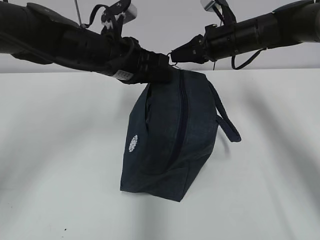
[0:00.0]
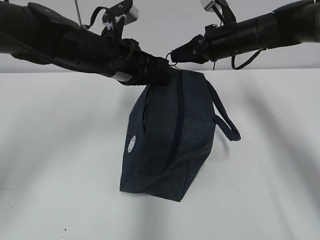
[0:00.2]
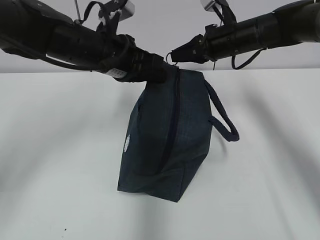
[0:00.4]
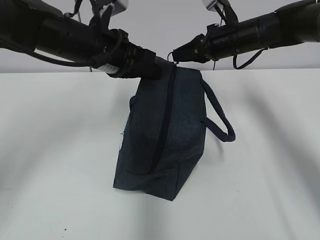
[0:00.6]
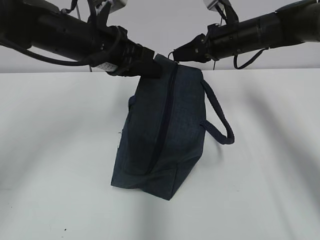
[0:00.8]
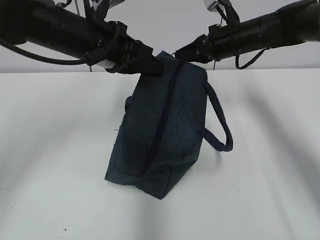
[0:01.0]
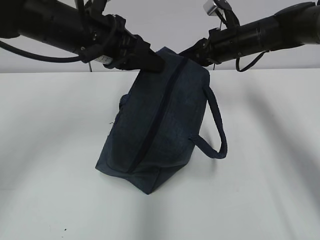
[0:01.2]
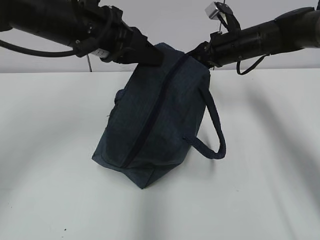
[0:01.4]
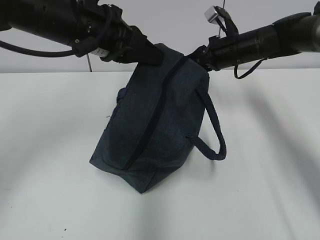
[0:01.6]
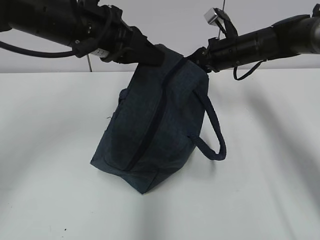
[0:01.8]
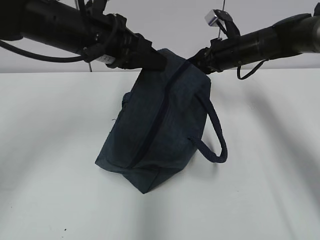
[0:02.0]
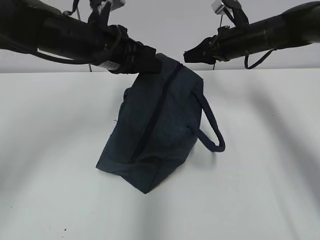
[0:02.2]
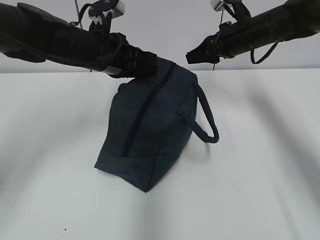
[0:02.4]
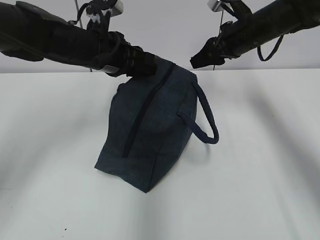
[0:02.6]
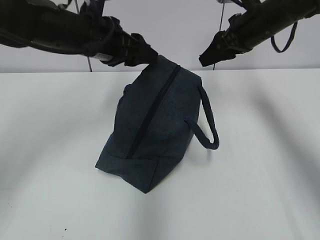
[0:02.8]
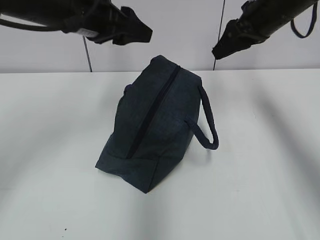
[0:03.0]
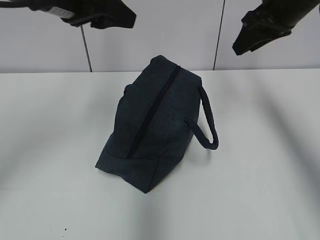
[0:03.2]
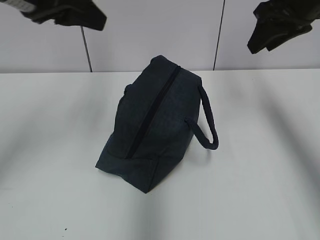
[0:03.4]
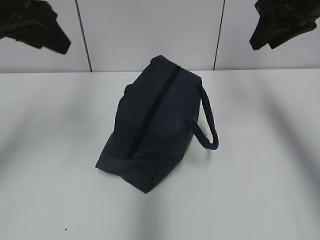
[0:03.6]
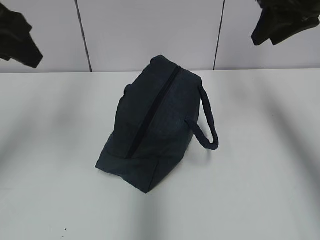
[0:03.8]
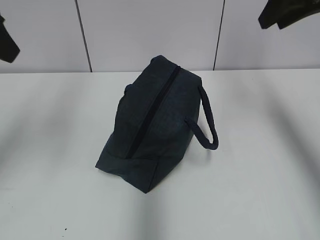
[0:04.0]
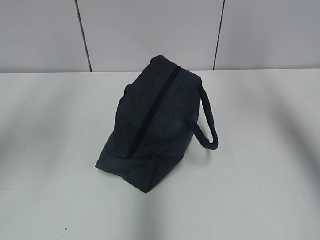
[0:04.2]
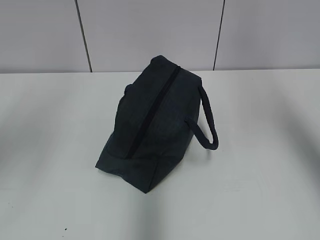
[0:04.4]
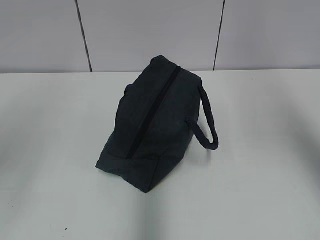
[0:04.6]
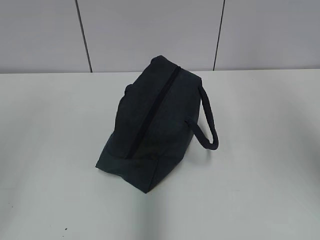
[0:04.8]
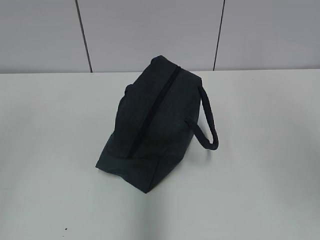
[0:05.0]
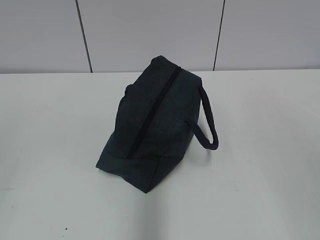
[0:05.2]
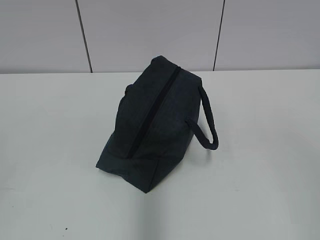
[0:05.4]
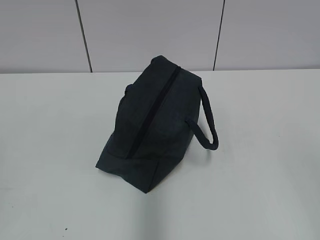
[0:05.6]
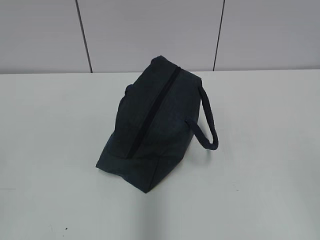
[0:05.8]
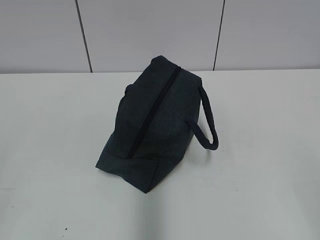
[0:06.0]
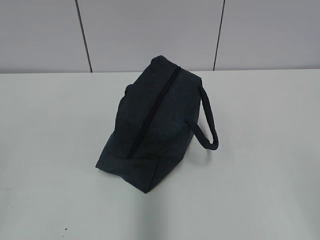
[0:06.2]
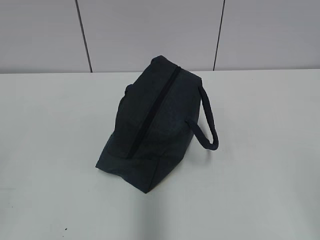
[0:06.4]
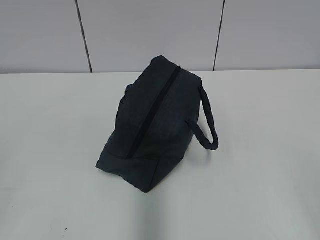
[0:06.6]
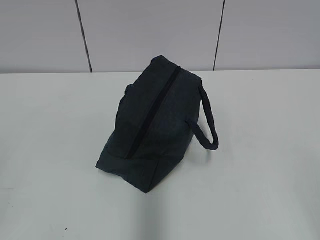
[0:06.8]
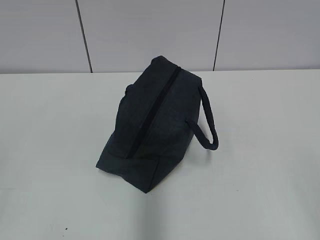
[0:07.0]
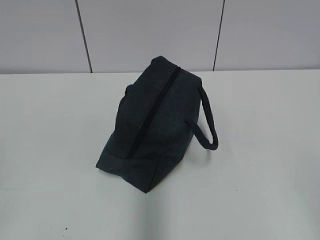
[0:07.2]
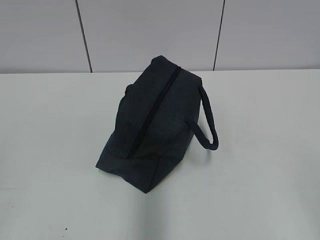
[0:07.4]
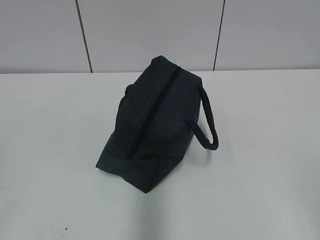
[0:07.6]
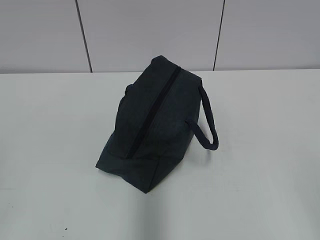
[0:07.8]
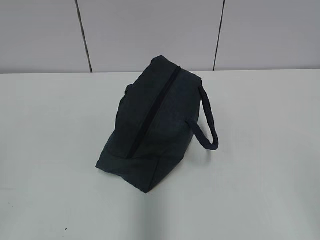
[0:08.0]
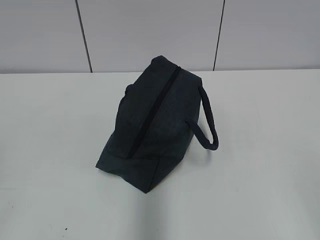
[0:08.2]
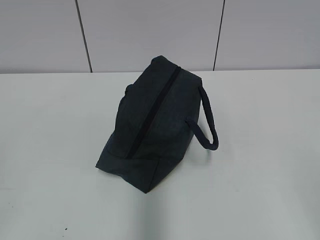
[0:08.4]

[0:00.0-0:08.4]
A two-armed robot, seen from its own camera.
Step, 0:02.2 to 0:02.6: Grab the lunch bag with your left hand.
0:00.0 to 0:01.4: The left gripper shifts about 5 cm upward.
0:01.4 to 0:02.8: The left gripper opens up; the right gripper shifts approximately 5 cm upward, and opens up.
0:02.8 to 0:04.2: The right gripper heads upward and backward, covering about 20 cm; the left gripper is displaced backward, upward and to the left by roughly 25 cm.
0:04.2 to 0:05.6: The right gripper shifts about 35 cm backward.
